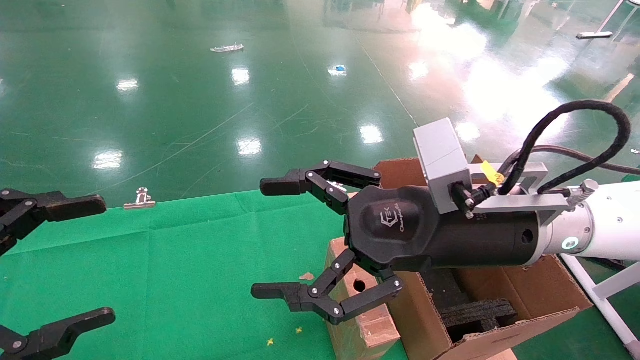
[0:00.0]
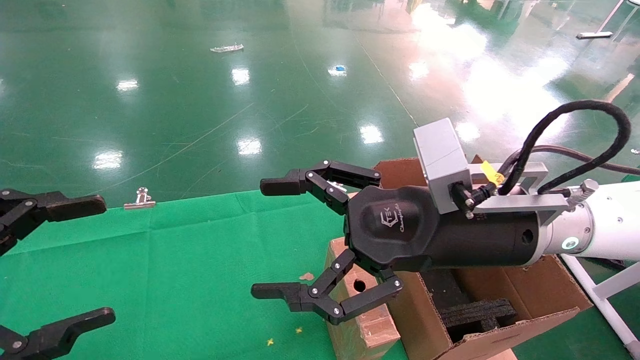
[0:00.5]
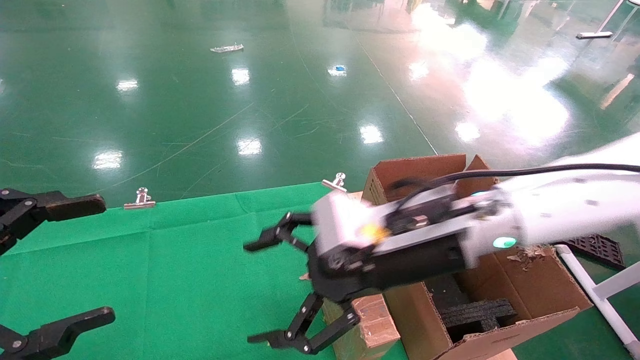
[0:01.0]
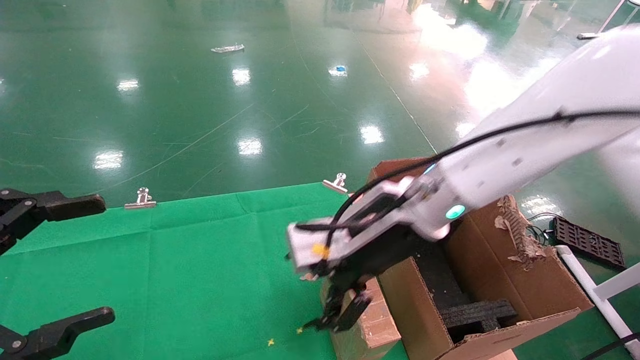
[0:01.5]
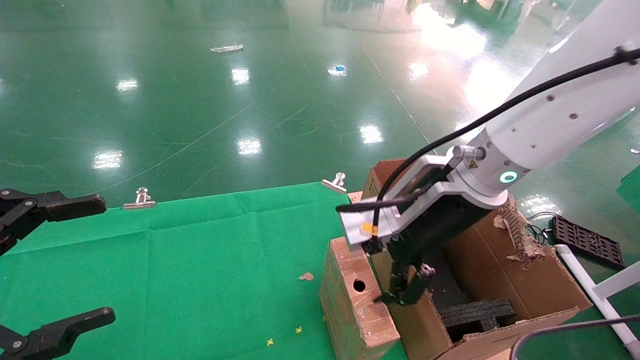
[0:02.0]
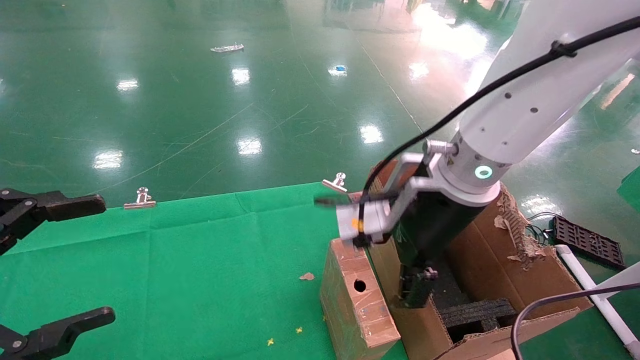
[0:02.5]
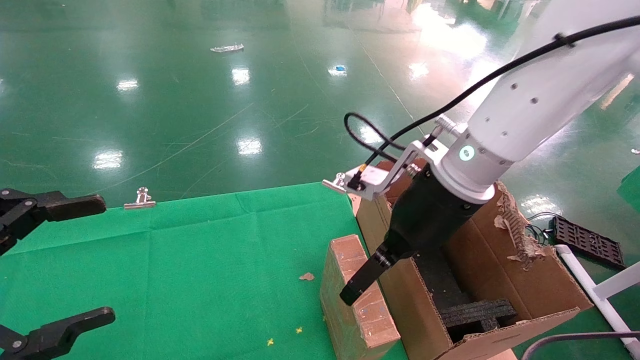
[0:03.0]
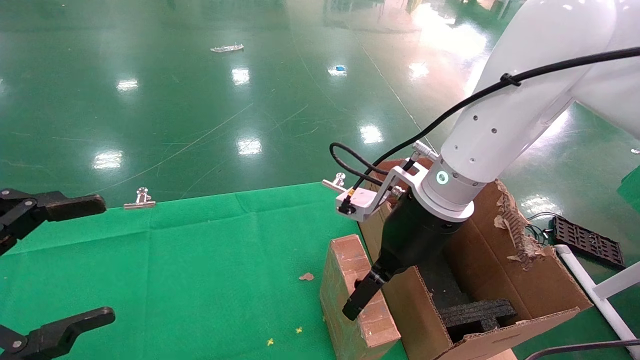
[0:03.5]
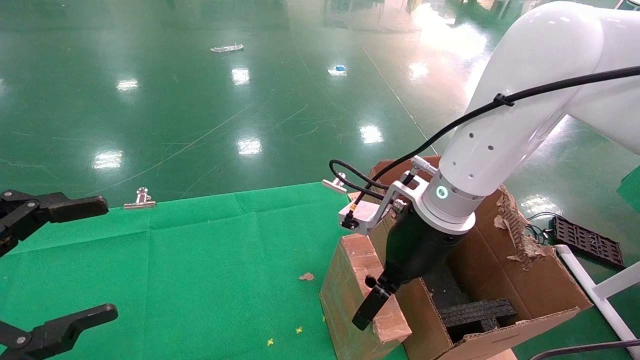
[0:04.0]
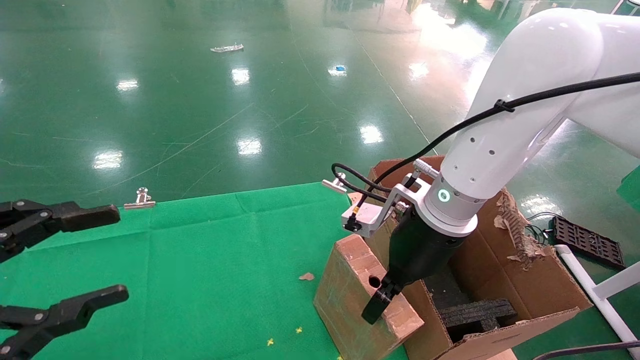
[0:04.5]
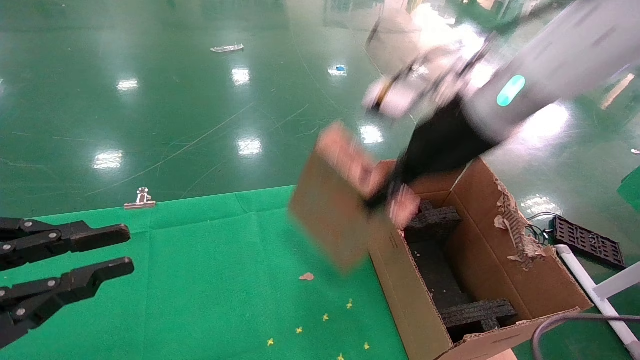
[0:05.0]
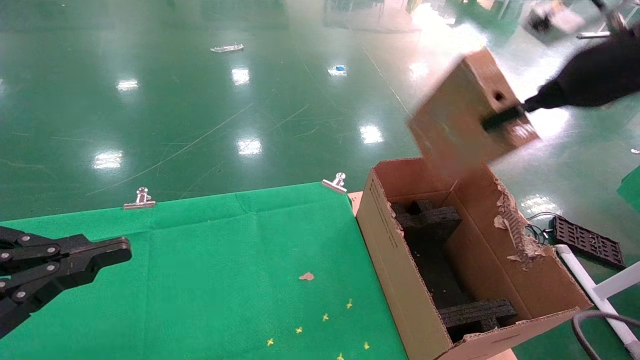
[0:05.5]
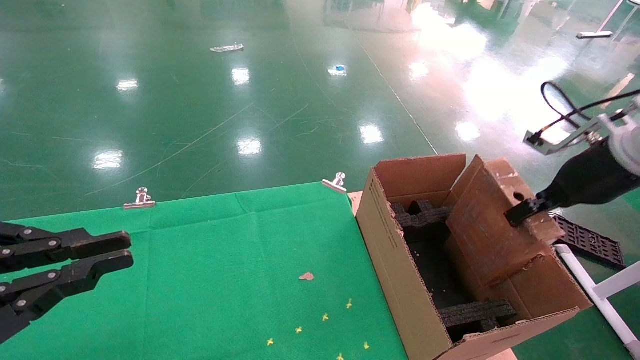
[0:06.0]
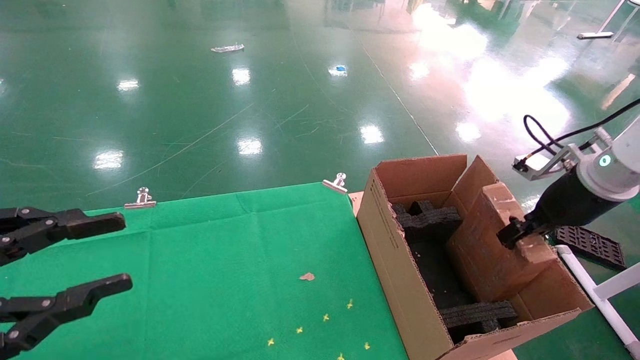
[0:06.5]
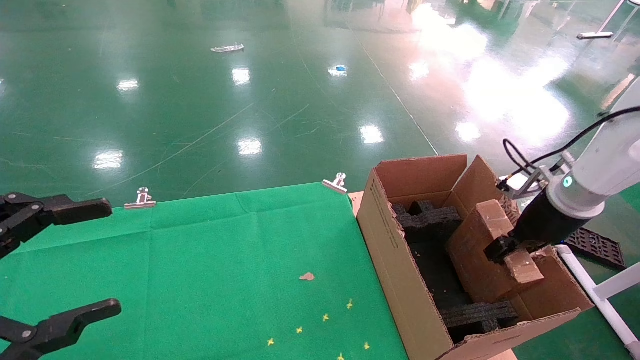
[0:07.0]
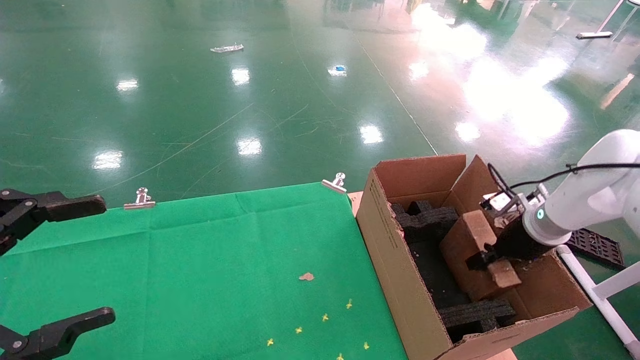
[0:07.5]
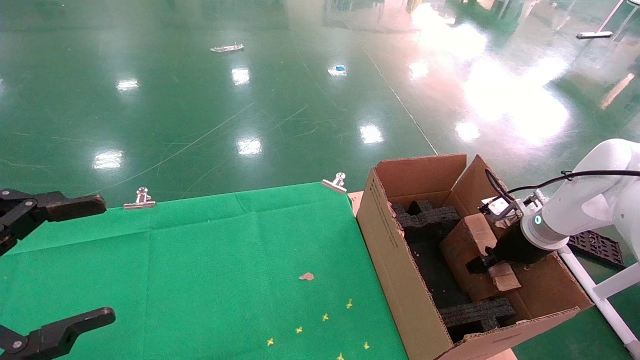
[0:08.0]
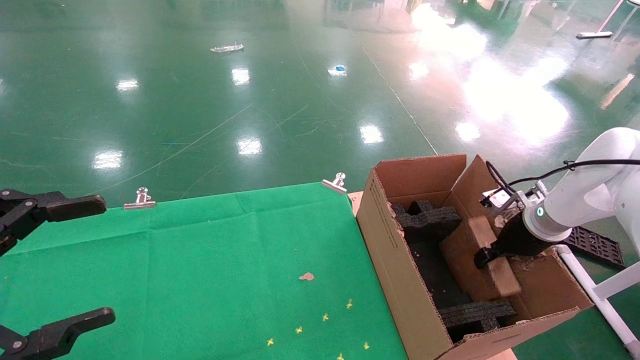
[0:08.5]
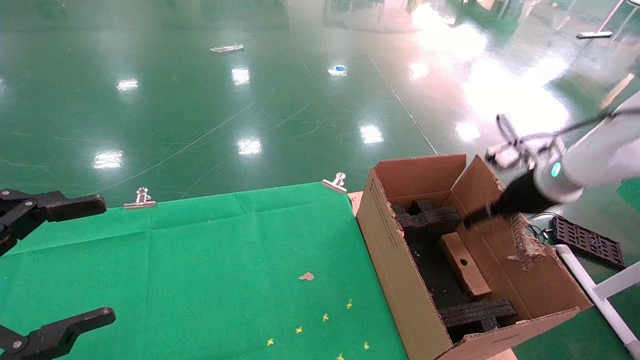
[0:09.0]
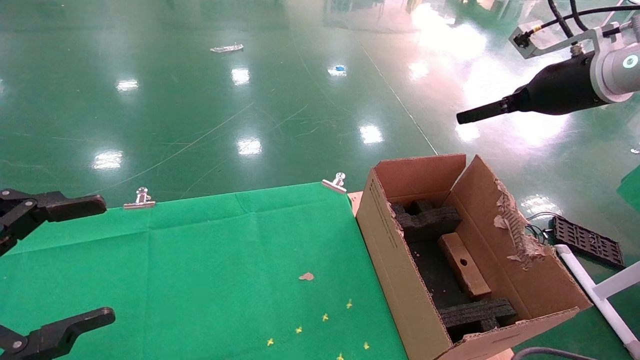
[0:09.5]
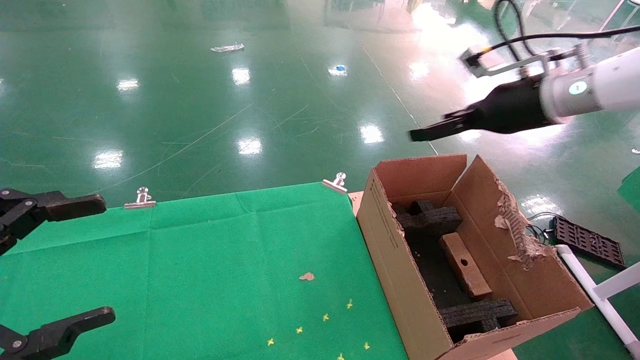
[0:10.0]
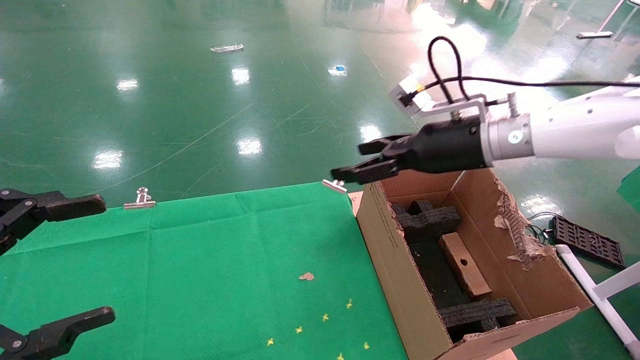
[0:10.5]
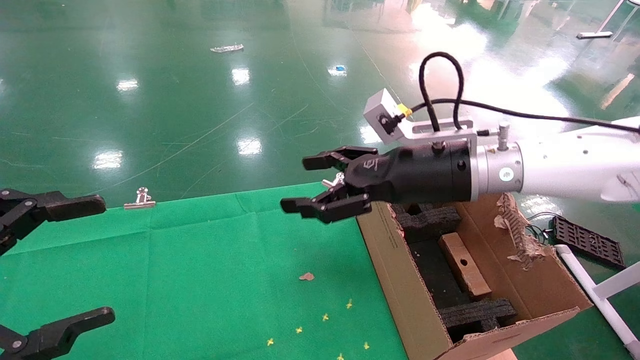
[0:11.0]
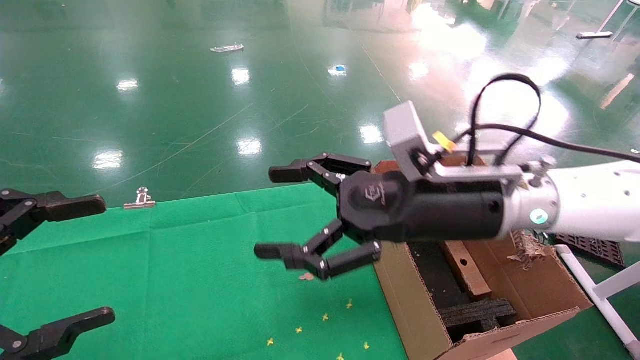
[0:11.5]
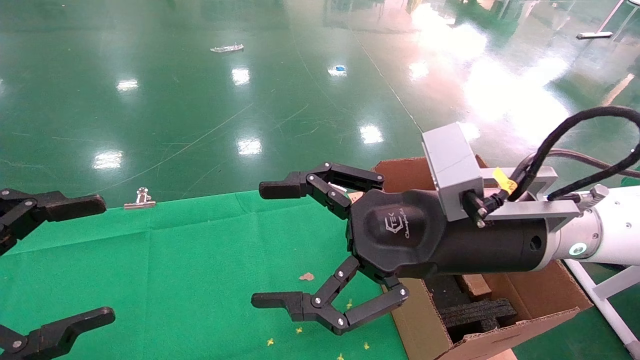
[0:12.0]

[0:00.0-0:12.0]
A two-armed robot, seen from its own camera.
Task of the whole recording: using a robotic arm to pick up a cardboard box and palace it the carton.
Step, 0:01.0 to 0:04.5: Pick up the mouse and the power cord paper box.
Step, 0:05.0 to 0:08.5: Place the mouse and the power cord paper box into the container.
0:00.0 to 0:02.0: The right gripper moves forward, about 5 cm.
0:02.0 to 0:04.0: The right gripper ends up approximately 5 cm from where it was.
0:04.0 to 0:06.0: The right gripper moves to the right, approximately 25 cm, and closes up; the left gripper closes its fingers.
0:06.0 to 0:08.0: The left gripper opens. The right gripper shifts roughly 20 cm downward and forward.
0:08.0 to 0:10.0: The right gripper travels upward by about 20 cm, and opens its fingers.
0:10.0 to 0:12.0: The right gripper heads to the left, backward and downward, covering approximately 25 cm.

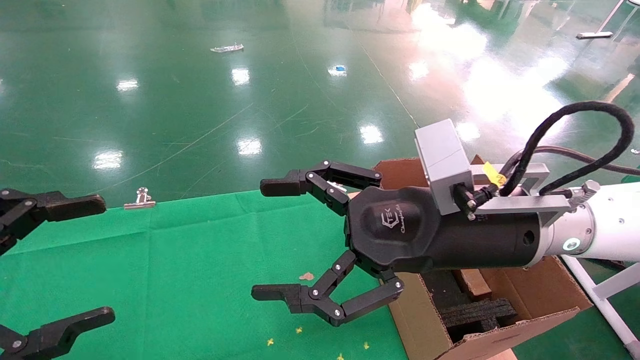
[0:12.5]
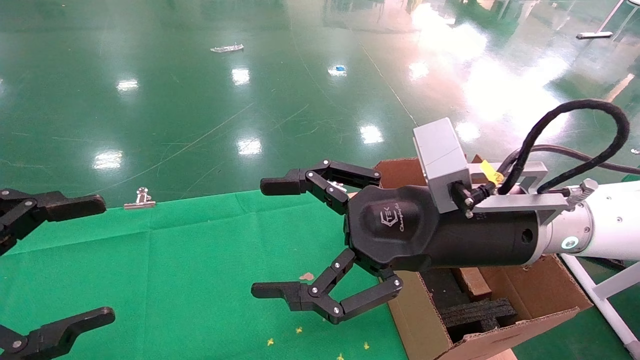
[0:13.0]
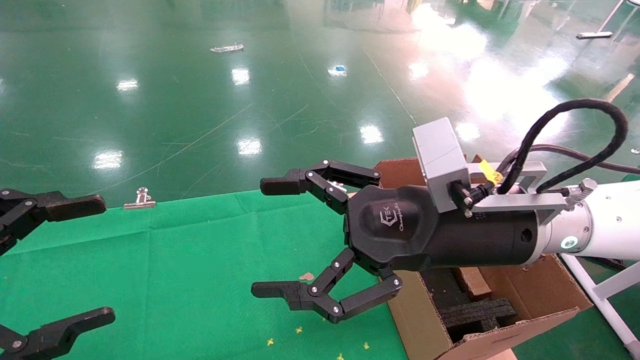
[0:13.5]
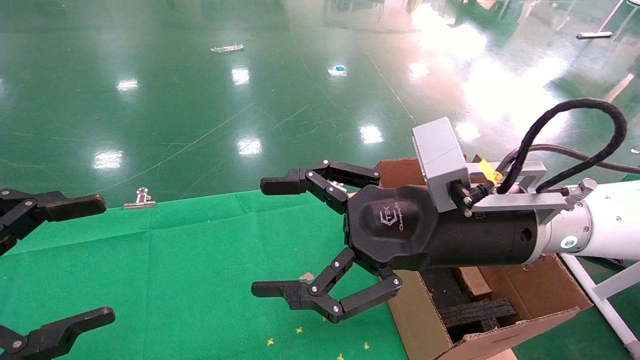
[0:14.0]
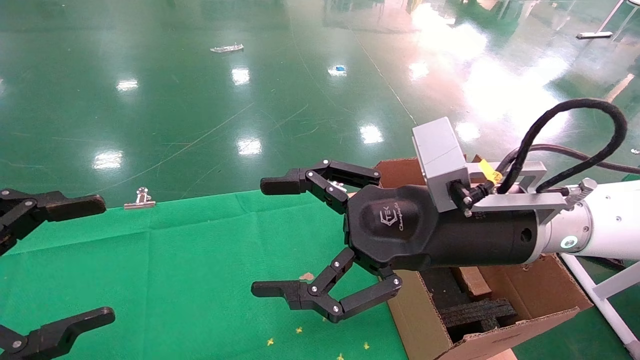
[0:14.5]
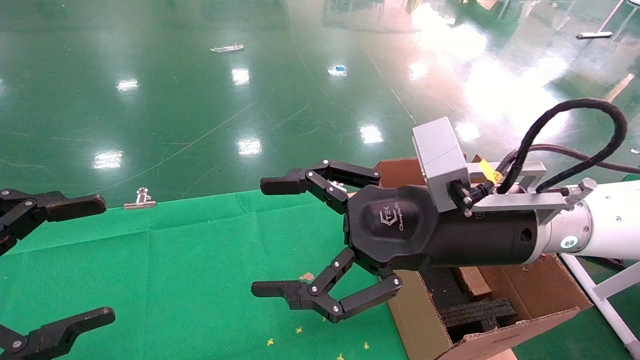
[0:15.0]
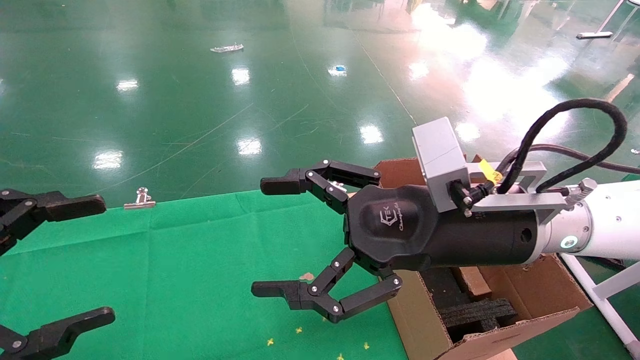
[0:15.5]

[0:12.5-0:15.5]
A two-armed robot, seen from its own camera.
Task of the whole recording: using a robotic arm to pick up a cardboard box and palace it the carton.
0:12.5 to 0:15.5: Both grippers stay put.
